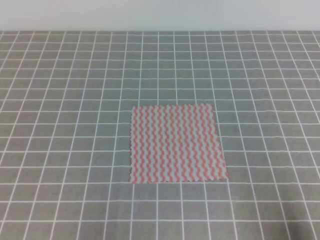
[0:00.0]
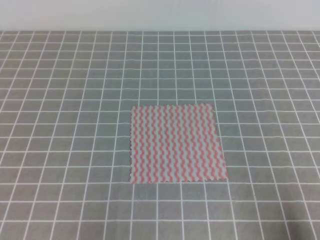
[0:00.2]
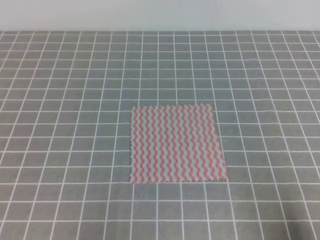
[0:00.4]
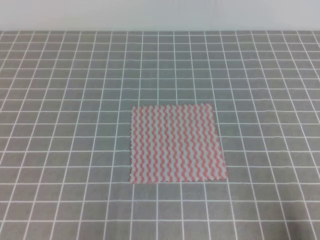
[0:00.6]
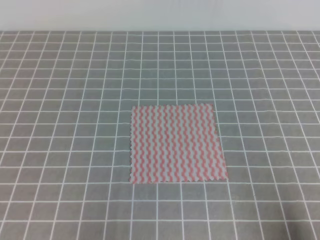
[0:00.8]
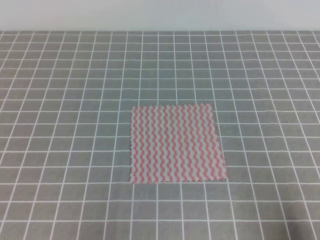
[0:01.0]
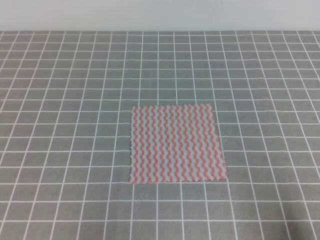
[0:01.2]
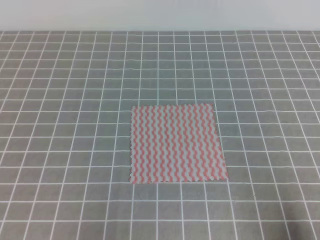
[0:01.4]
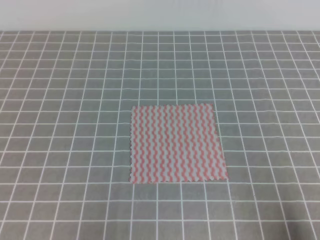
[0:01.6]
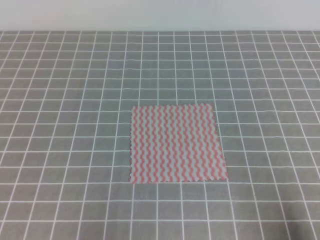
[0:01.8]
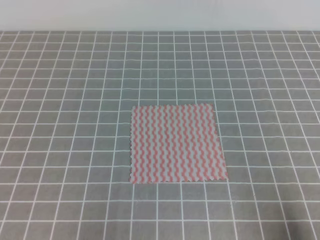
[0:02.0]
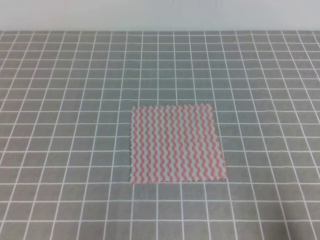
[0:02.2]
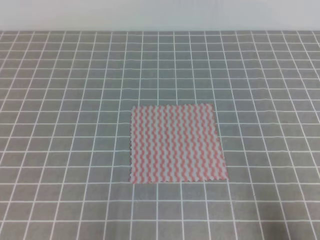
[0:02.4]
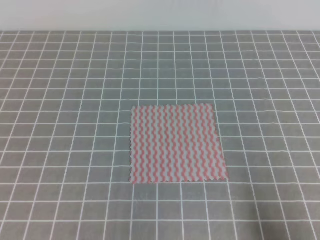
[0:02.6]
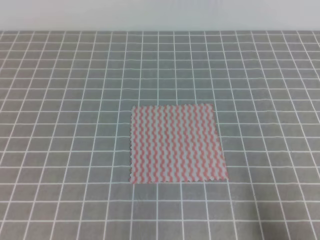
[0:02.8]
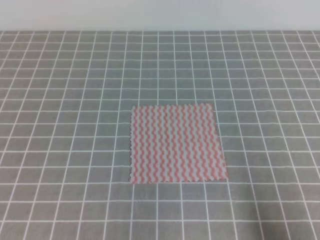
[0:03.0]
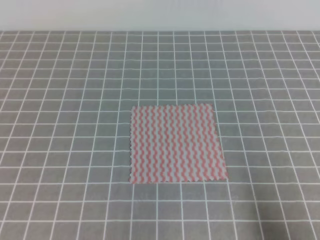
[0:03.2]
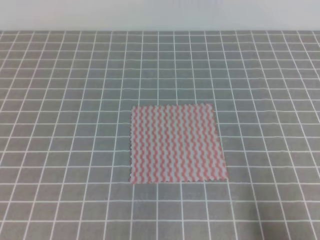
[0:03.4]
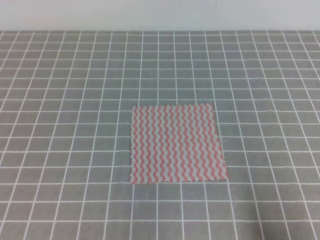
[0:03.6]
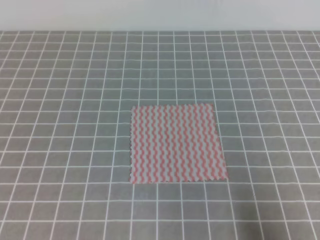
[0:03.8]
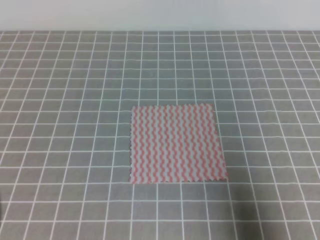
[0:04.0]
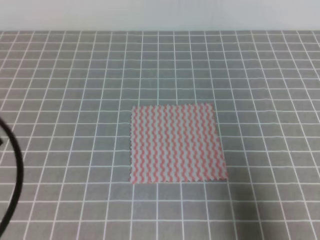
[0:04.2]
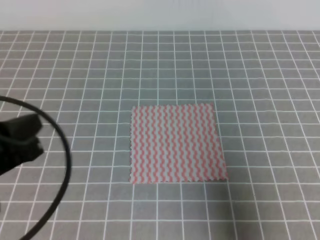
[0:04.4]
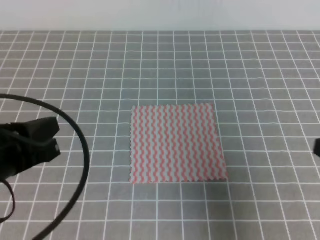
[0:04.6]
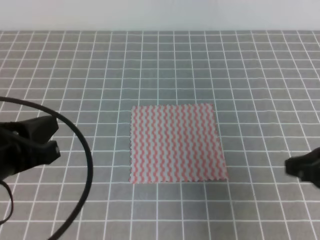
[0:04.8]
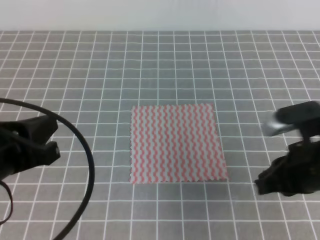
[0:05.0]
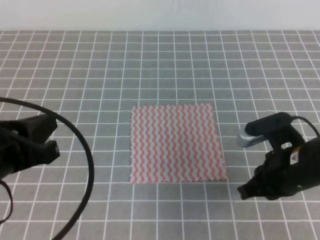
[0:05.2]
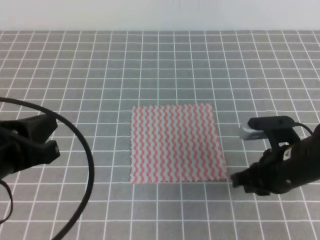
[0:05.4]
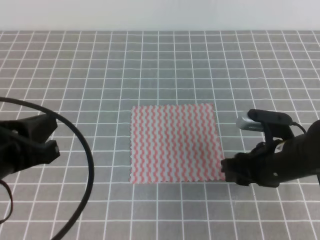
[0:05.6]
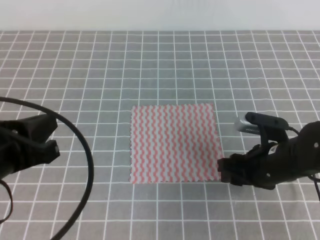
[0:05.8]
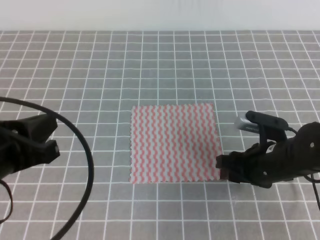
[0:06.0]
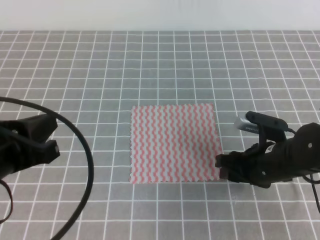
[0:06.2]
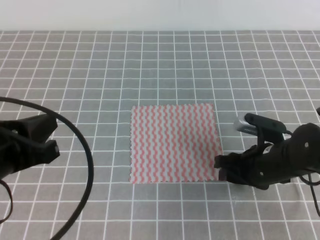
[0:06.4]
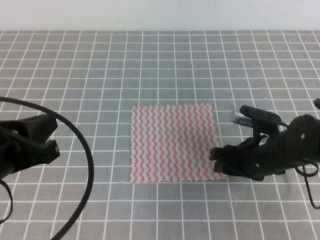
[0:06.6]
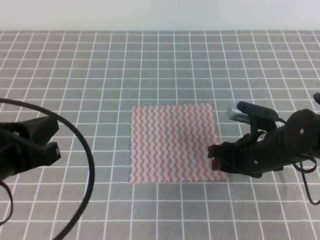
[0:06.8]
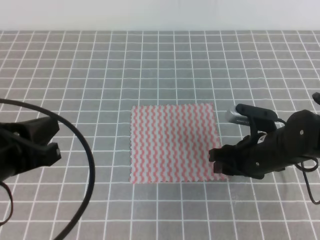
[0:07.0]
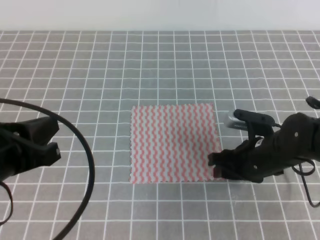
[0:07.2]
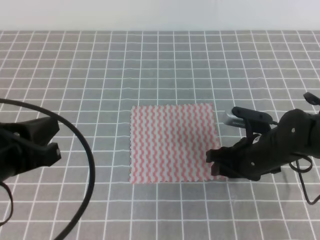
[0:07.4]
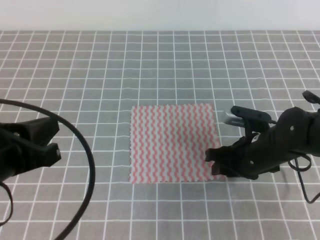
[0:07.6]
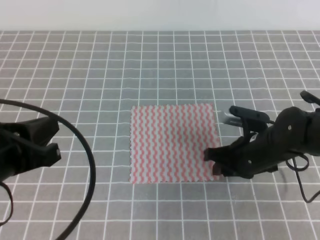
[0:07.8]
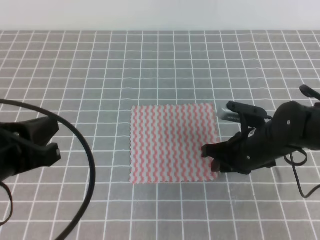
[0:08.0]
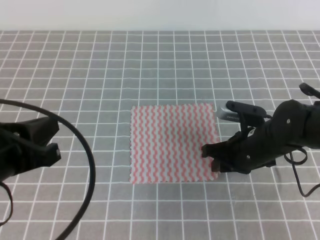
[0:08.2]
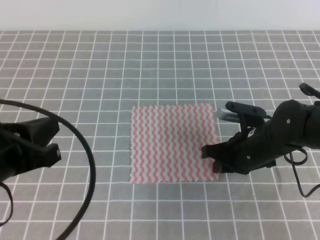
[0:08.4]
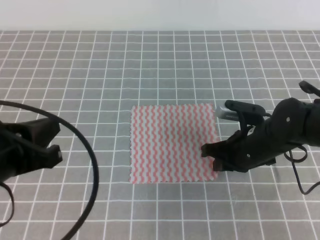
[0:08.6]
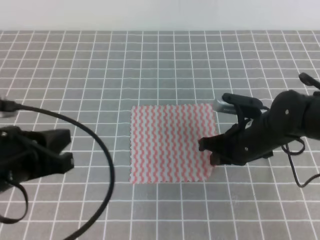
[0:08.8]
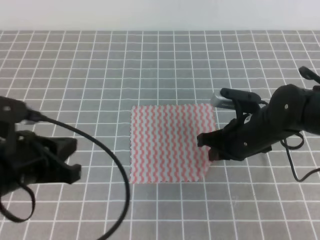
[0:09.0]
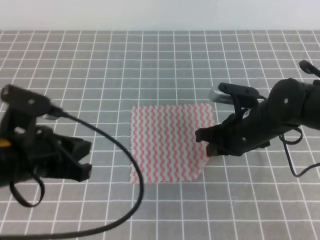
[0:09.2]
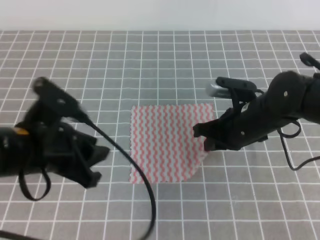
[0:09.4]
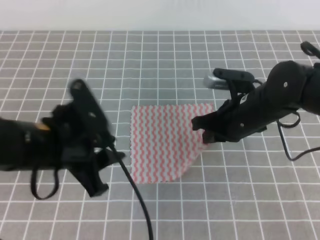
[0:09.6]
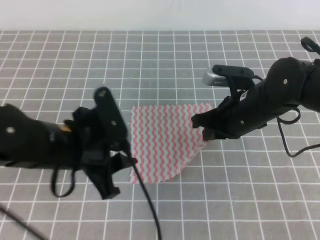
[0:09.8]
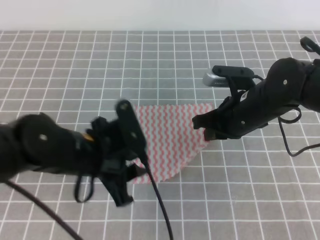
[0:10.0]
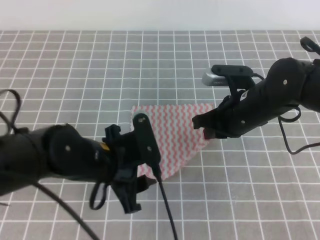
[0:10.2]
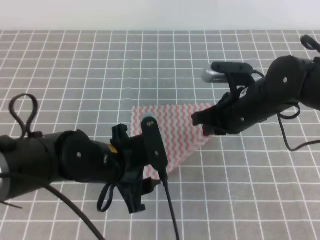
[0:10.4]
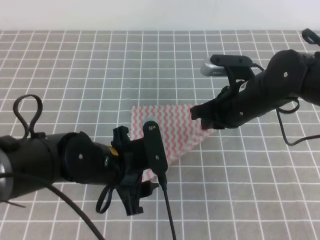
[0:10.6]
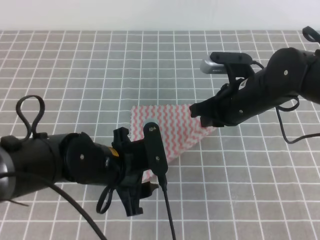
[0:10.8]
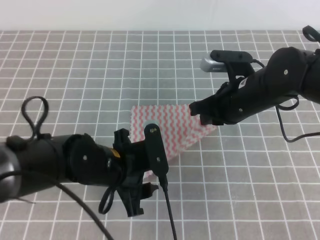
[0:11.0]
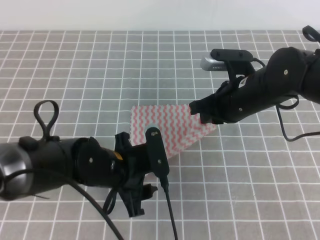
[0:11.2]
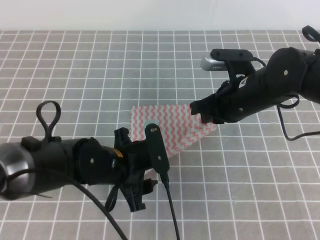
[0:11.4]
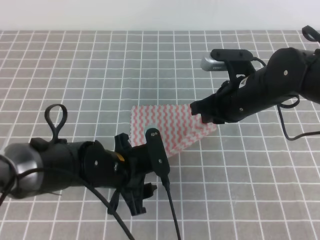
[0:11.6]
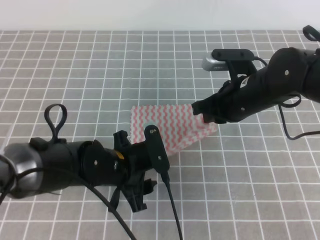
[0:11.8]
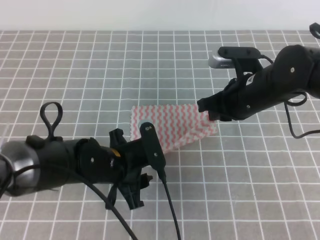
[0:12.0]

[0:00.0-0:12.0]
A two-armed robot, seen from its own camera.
0:00.0 to 0:01.6: The two grippers keep their place.
0:03.0 to 0:04.4: The left gripper shifts approximately 15 cm upward and forward. The right gripper goes some 10 cm upward and forward.
0:04.4 to 0:06.0: The right gripper is displaced forward, to the left and downward by approximately 20 cm, and opens.
0:06.0 to 0:07.6: There are only small adjustments of the grippers.
0:07.6 to 0:09.0: The right gripper closes.
0:09.0 to 0:10.4: The left gripper moves to the right, downward and forward, roughly 15 cm, and opens its fingers.
0:10.4 to 0:12.0: The grippers stay close to where they were, moving slightly.

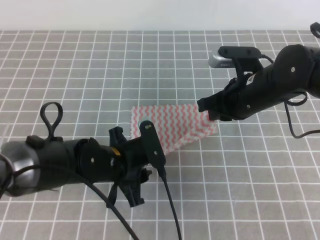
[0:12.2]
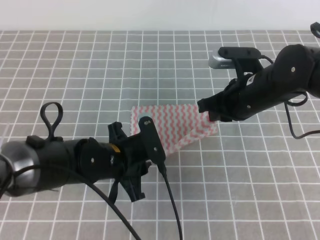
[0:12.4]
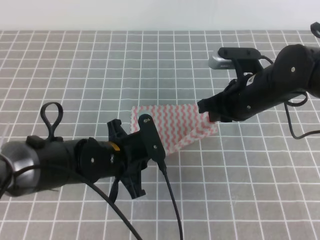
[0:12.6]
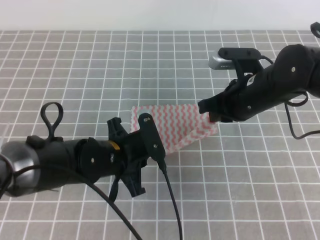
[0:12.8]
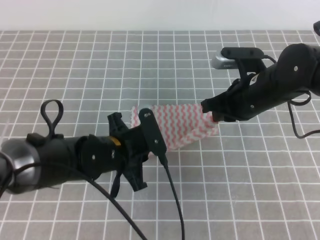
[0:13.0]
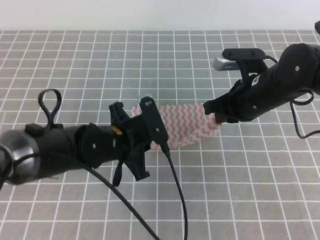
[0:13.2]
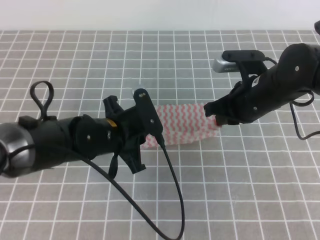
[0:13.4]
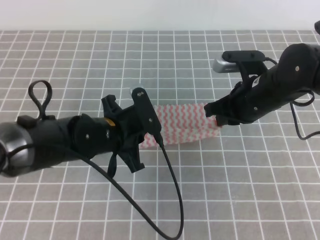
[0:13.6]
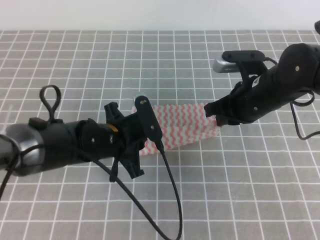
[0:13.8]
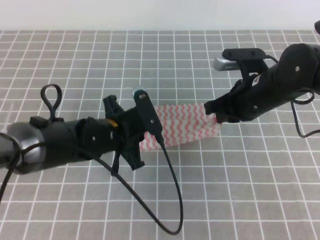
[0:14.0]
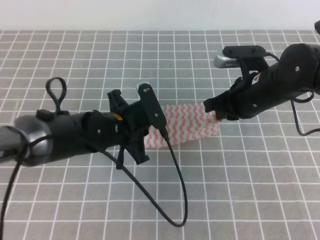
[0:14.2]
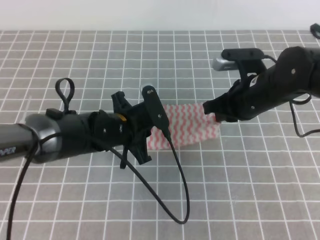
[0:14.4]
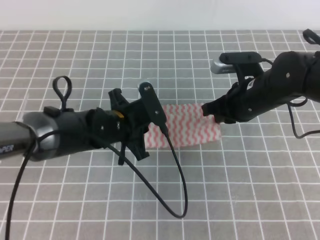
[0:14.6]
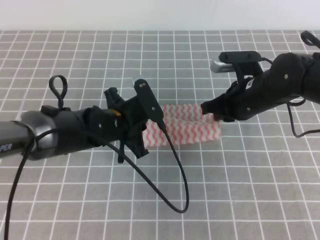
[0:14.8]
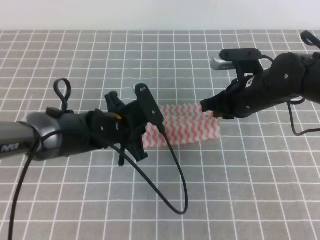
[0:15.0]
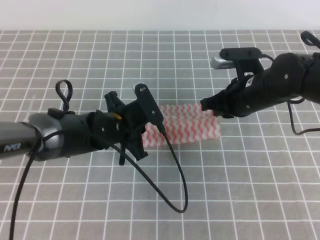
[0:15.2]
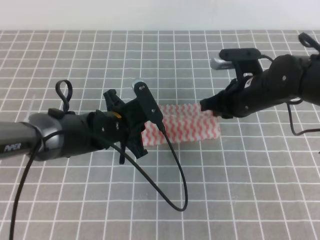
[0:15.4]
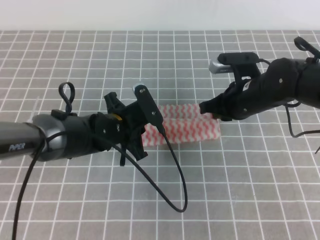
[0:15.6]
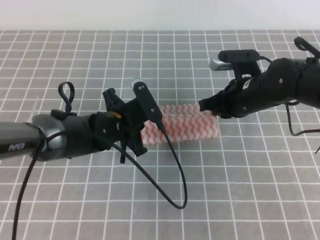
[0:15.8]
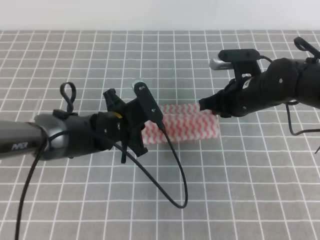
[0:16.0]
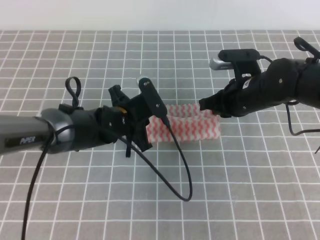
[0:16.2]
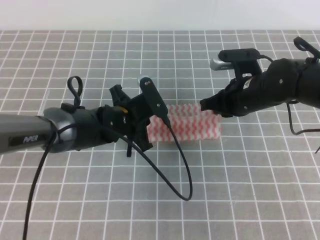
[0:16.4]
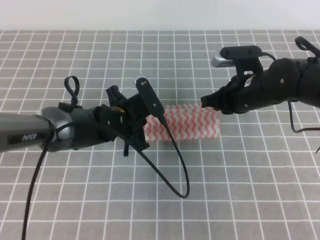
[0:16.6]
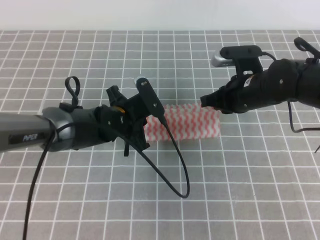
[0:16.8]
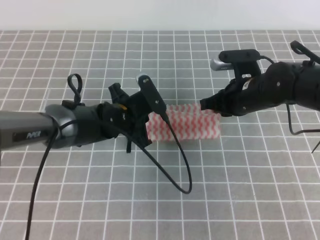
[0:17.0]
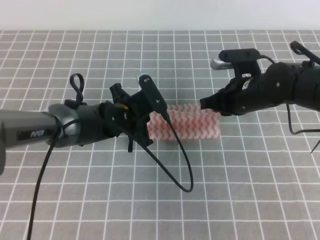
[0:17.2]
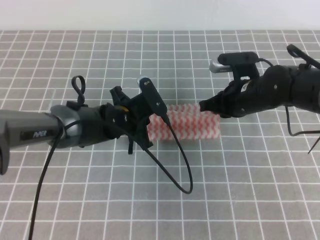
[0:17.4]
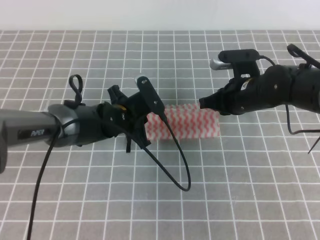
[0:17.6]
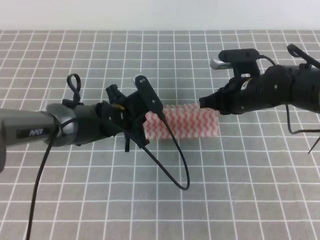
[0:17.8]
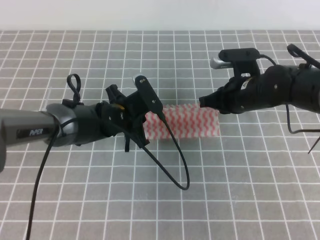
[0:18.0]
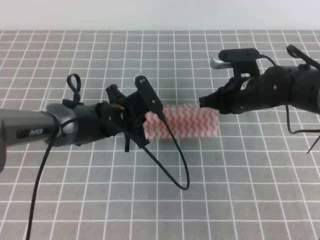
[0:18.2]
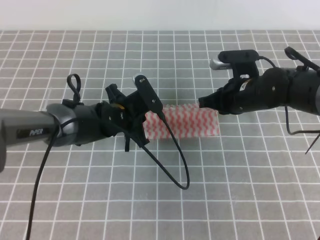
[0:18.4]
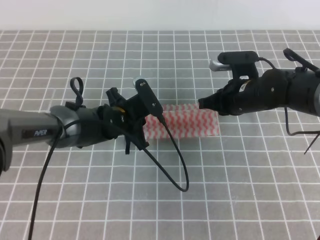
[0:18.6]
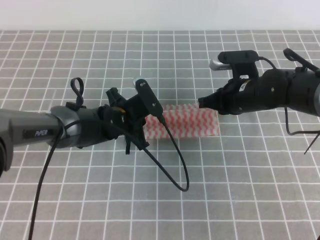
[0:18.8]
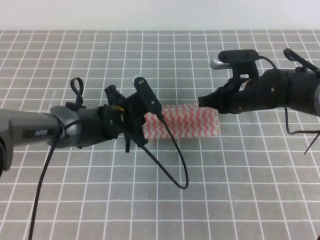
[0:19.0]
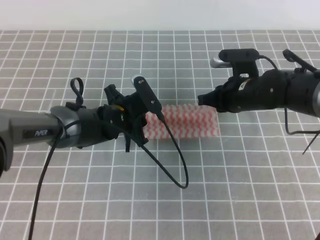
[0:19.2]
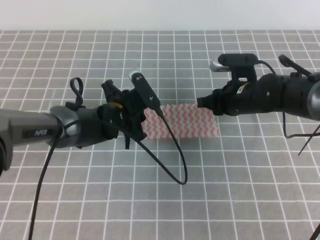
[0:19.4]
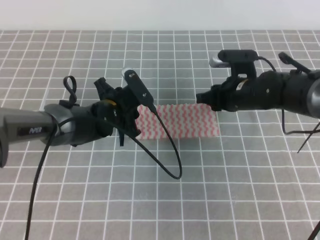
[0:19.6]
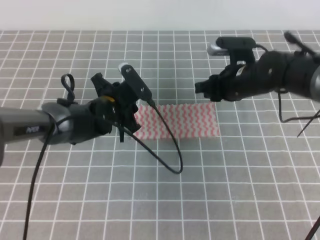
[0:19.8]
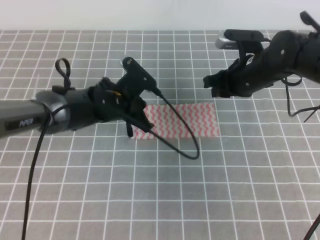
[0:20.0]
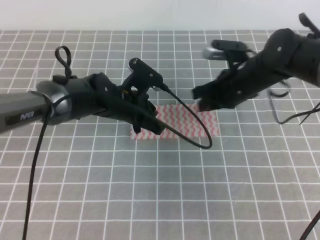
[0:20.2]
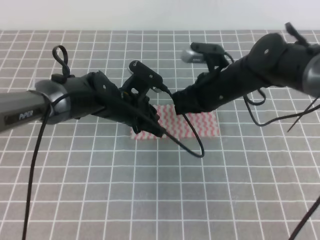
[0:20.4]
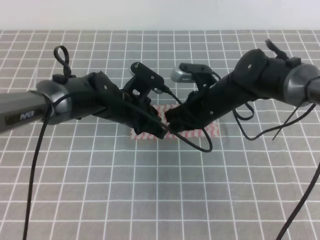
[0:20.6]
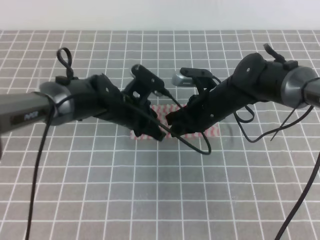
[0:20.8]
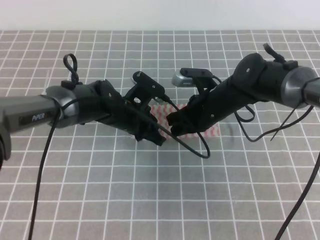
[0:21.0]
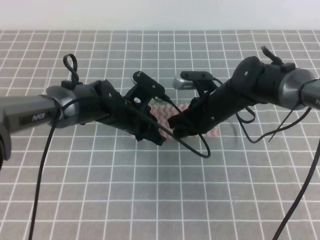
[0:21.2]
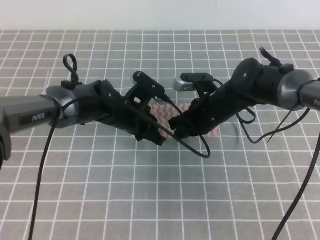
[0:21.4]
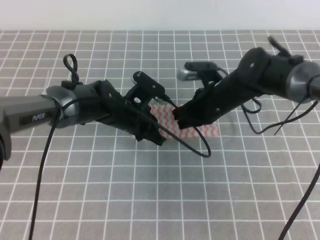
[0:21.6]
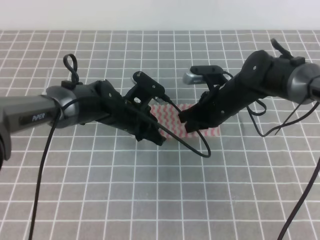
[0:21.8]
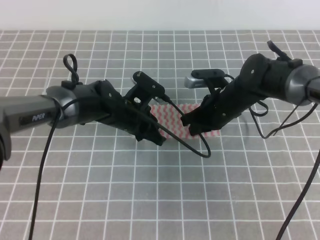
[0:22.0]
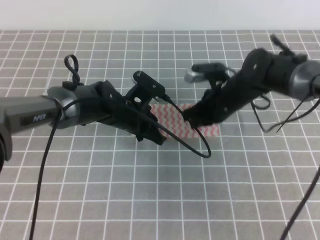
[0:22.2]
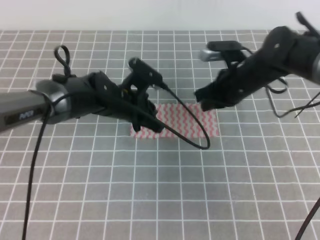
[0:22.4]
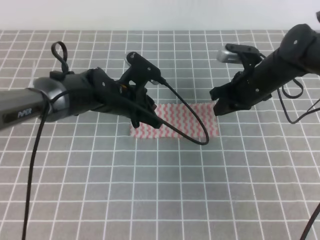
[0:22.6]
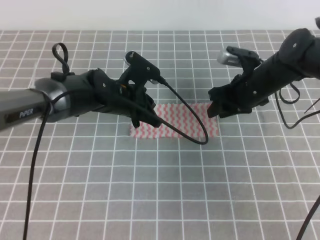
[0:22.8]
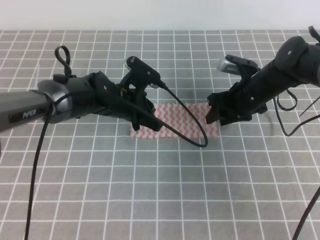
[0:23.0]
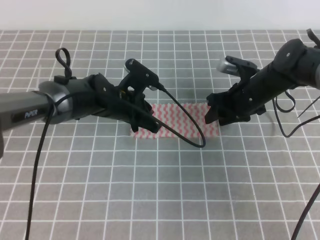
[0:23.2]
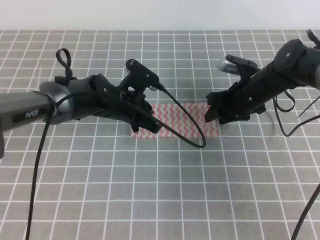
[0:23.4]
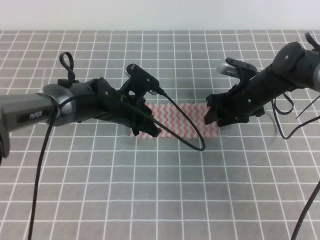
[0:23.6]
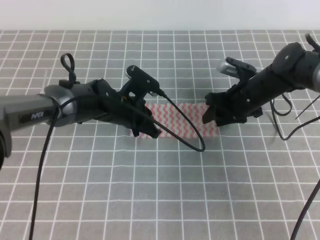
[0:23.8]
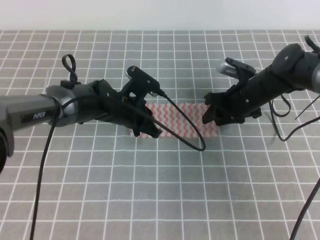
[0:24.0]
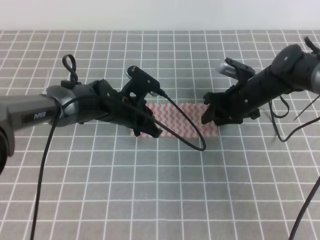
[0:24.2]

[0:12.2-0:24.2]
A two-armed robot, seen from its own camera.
0:12.2 to 0:13.8: The left gripper closes up.
0:13.8 to 0:15.2: The grippers move only a little.
0:15.2 to 0:18.2: The grippers move only a little.
0:18.2 to 0:19.8: The right gripper opens up, while the left gripper opens.
0:19.8 to 0:21.2: The right gripper is displaced to the left by some 5 cm, and closes; the left gripper closes.
0:21.2 to 0:22.6: The right gripper shifts about 5 cm to the right.
0:22.6 to 0:24.2: The right gripper opens its fingers.
